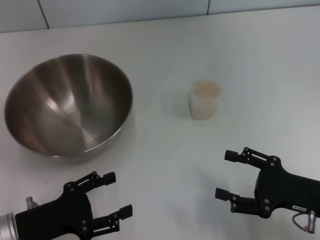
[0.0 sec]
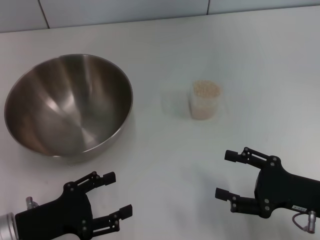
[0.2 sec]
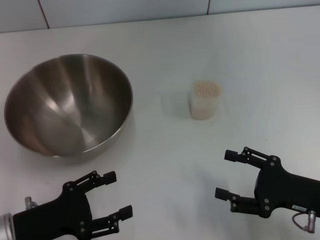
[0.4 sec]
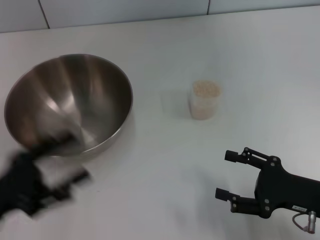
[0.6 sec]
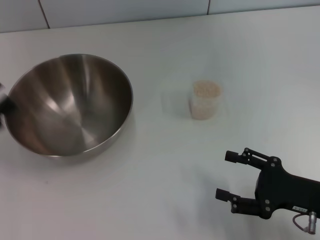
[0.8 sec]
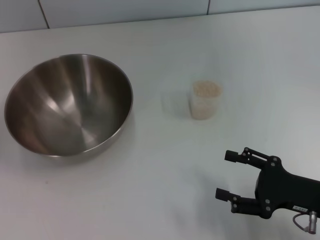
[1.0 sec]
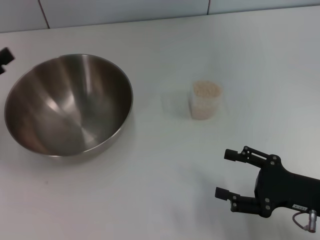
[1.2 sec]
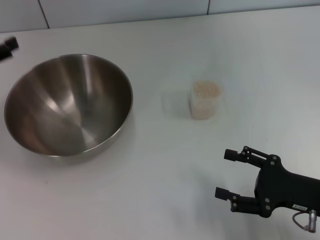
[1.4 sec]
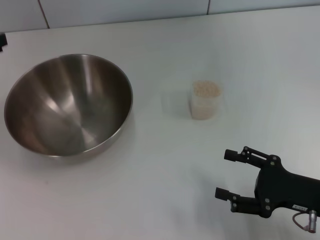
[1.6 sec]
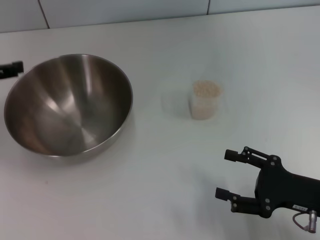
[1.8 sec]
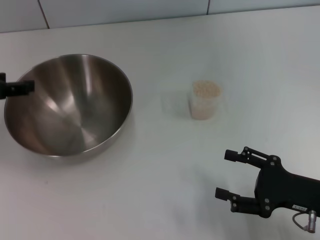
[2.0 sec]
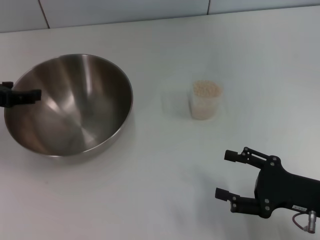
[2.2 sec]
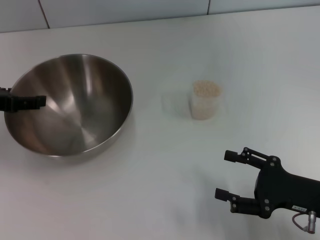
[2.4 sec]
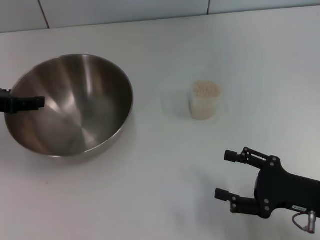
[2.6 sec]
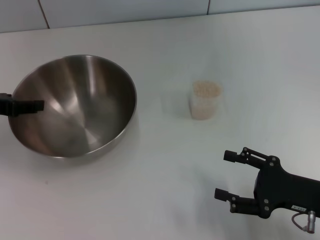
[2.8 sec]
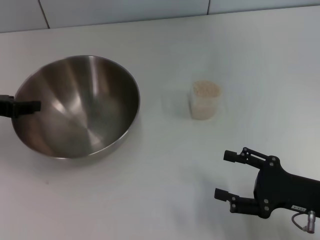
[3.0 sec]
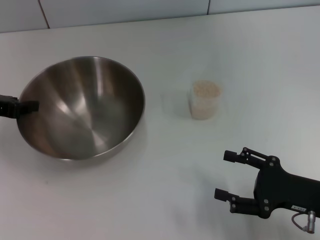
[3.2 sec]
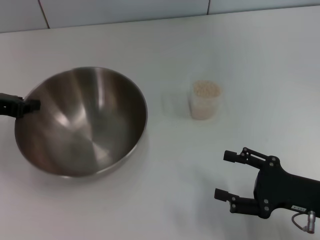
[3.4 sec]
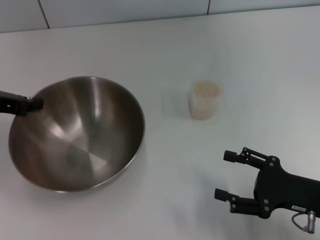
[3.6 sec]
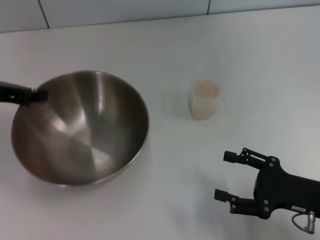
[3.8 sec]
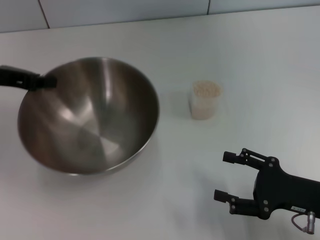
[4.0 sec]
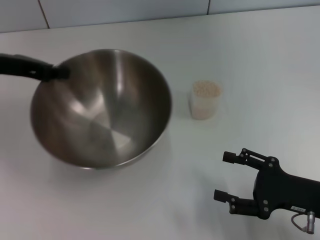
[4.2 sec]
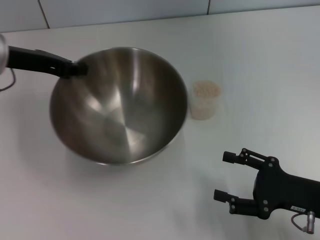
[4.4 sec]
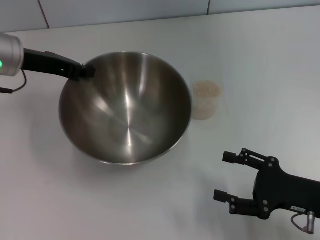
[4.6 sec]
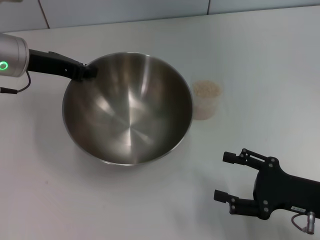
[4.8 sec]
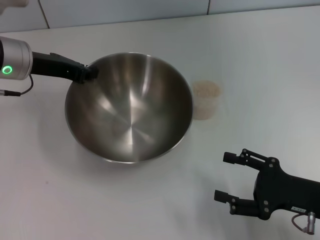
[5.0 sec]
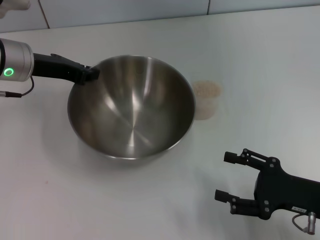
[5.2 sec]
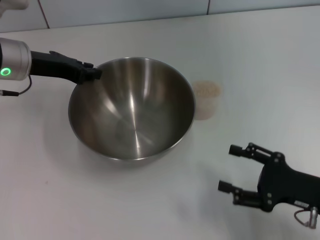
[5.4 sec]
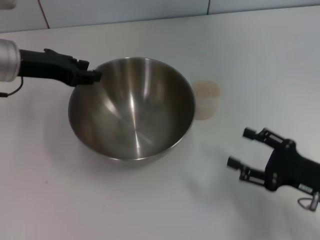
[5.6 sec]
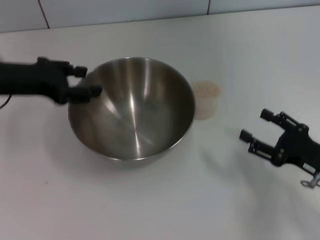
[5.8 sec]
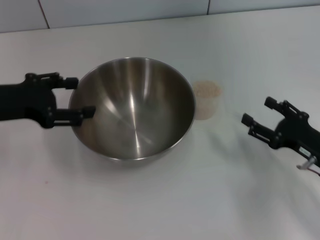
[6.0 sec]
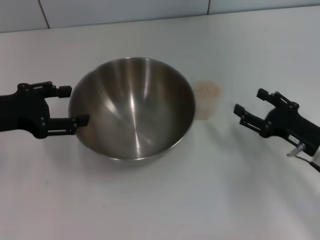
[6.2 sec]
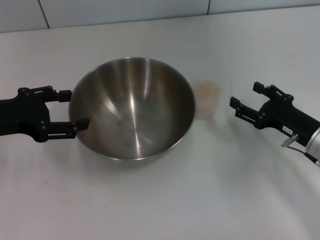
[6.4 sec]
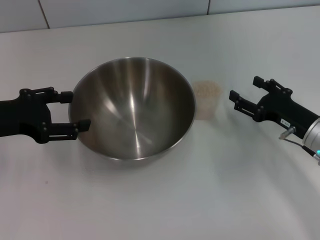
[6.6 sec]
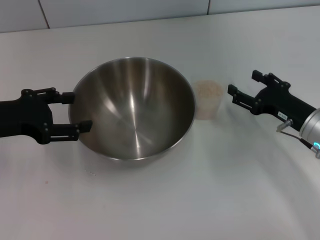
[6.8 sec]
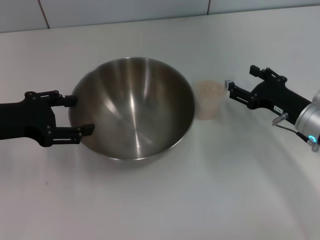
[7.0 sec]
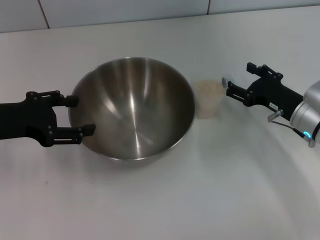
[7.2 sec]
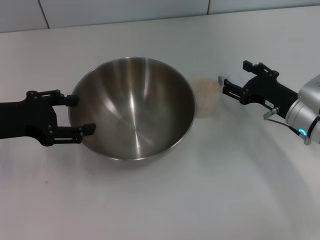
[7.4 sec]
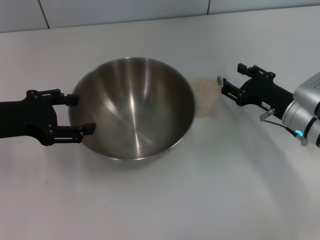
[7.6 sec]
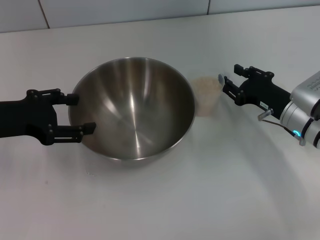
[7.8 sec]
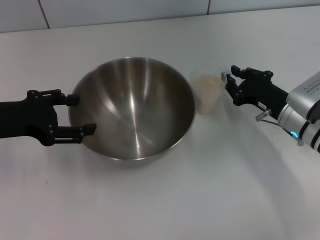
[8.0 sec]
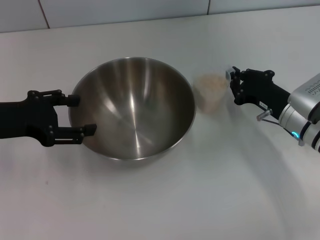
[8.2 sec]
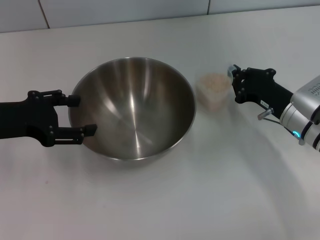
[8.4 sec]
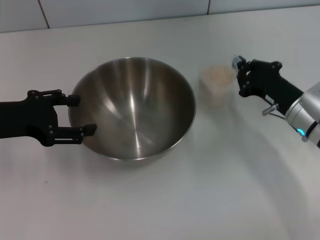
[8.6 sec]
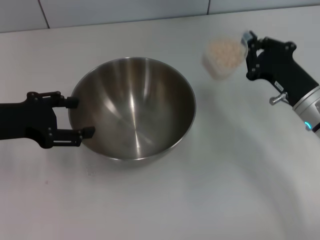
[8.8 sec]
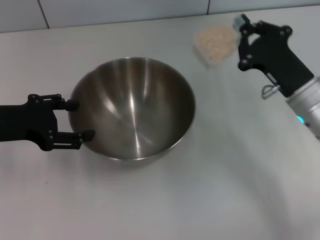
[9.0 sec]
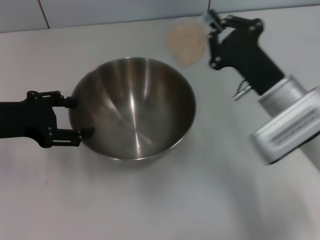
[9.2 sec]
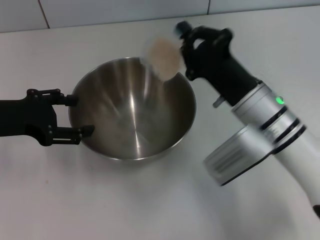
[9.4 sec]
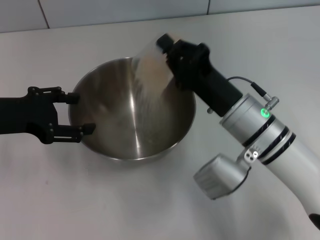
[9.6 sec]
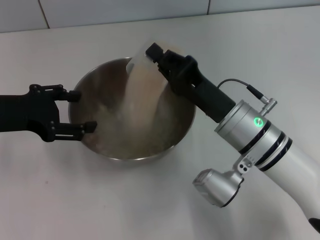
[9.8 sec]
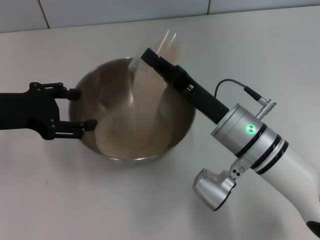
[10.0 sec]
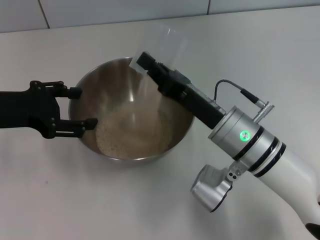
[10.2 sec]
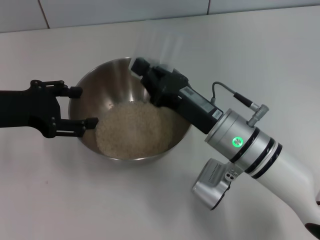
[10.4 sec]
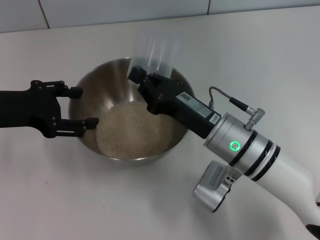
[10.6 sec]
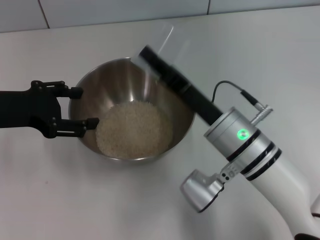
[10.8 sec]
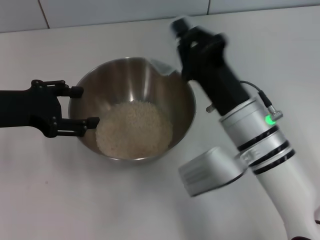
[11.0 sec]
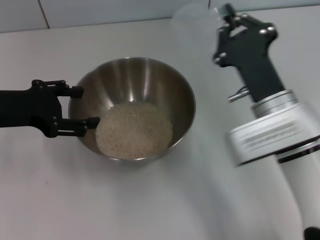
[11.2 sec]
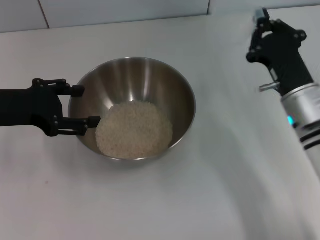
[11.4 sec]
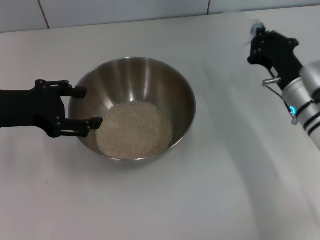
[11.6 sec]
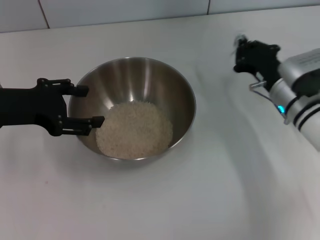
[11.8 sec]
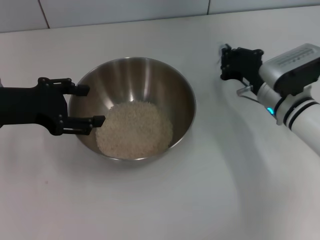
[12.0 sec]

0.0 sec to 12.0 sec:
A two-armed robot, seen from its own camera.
Task of the whole recording: Place the bowl in the middle of the table with one hand and pour the rice from the grain cup into it with the other hand.
Step, 0.0 sec to 3.8 sec: Pick up the bowl with the left gripper.
Step, 4.2 sec to 5.8 sec: Place the bowl in the center of view with the left gripper.
Step, 6.0 sec to 8.6 sec: Pick up the cup with rice in it with the right gripper.
Step, 8.8 sec to 11.2 sec: Pour the rice from the cup into the bowl with the right gripper.
0.0 sec to 1.6 sec: The left gripper is displaced upward, forward and to the left by roughly 20 cm.
1.6 sec to 3.0 sec: The left gripper closes.
3.0 sec to 4.4 sec: The left gripper travels to the right and forward by approximately 10 cm, and closes up.
4.4 sec to 6.0 sec: The right gripper ends up roughly 5 cm from where it was; the left gripper goes approximately 10 cm backward, and opens.
6.0 sec to 7.6 sec: The right gripper heads forward, covering approximately 10 cm.
7.6 sec to 9.0 sec: The right gripper ends up approximately 5 cm from where it was, and closes up.
9.0 sec to 10.4 sec: The right gripper moves to the left, approximately 10 cm.
10.4 sec to 12.0 sec: The right gripper is displaced to the right and forward by some 15 cm.

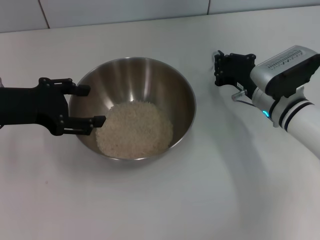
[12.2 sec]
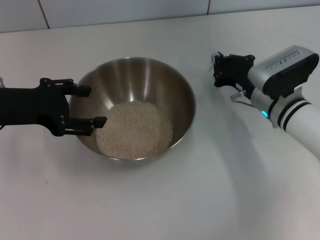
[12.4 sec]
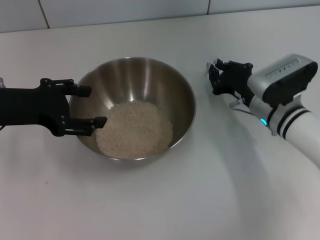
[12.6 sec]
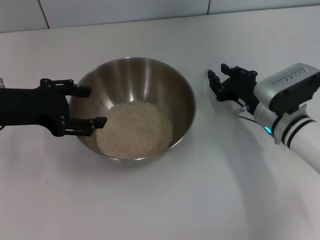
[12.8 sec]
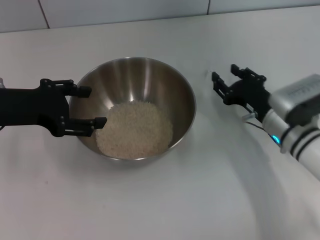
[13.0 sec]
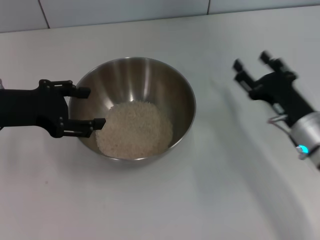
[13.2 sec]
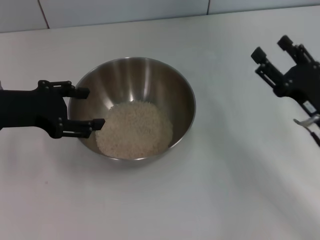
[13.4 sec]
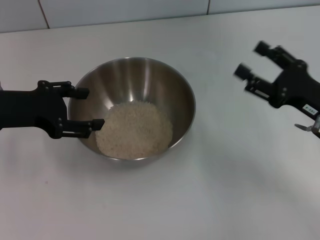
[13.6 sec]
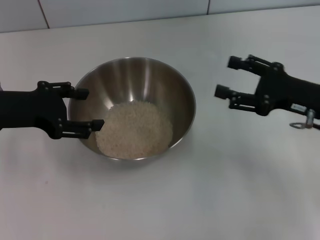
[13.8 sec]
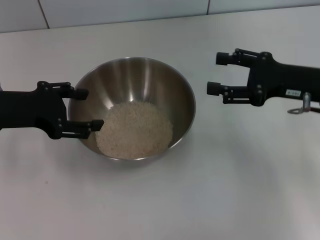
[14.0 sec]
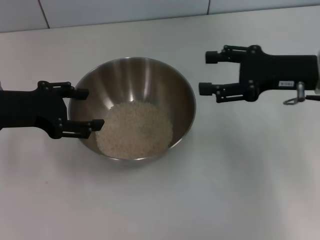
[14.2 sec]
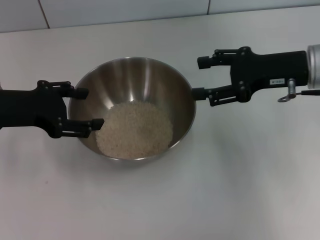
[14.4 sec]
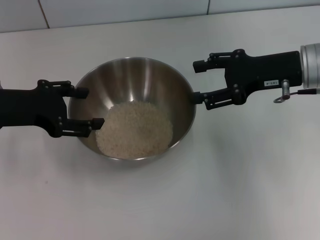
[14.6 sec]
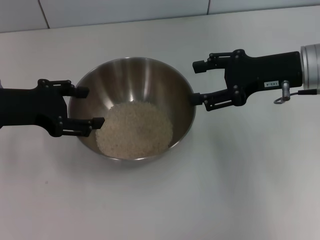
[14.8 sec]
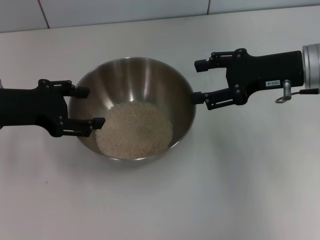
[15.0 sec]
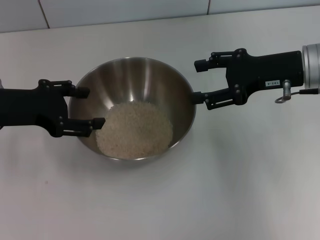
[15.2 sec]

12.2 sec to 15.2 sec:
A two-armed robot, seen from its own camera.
Task of the whole recording: Place the bowl in the middle of the table with one hand and pour the rice from the grain cup into it with the other hand.
Step, 12.2 sec to 13.0 sec: Place the cup on the table with the right gripper.
12.2 sec to 13.8 sec: The right gripper moves to the right, upward and backward, approximately 10 cm, and opens its fingers.
13.8 sec to 15.2 sec: The right gripper travels upward and forward by some 10 cm.
